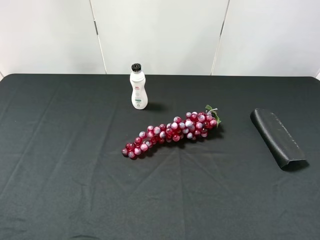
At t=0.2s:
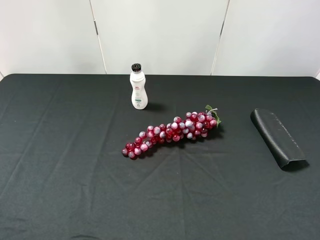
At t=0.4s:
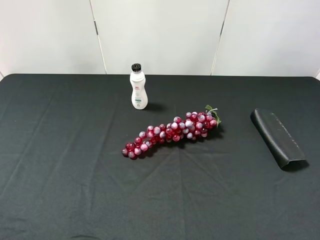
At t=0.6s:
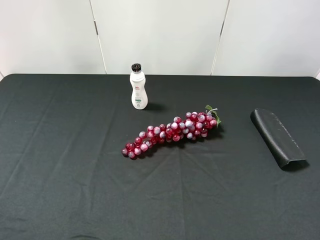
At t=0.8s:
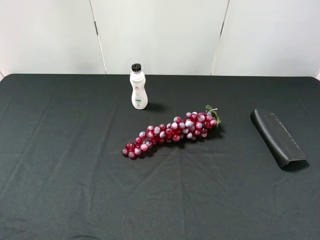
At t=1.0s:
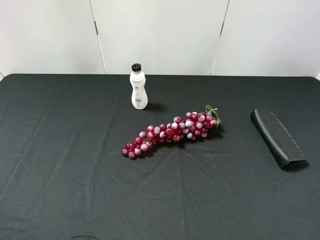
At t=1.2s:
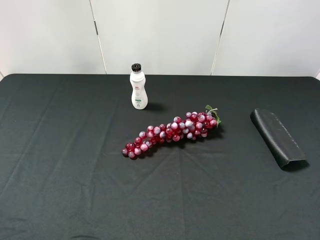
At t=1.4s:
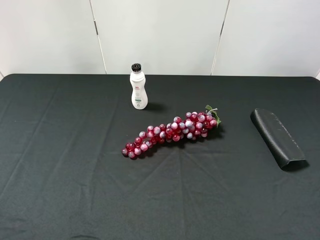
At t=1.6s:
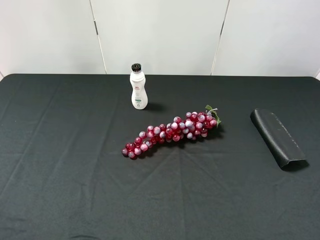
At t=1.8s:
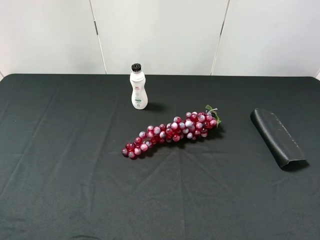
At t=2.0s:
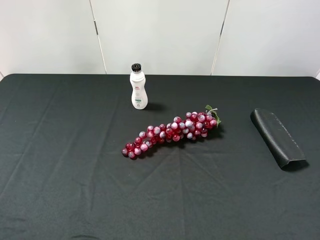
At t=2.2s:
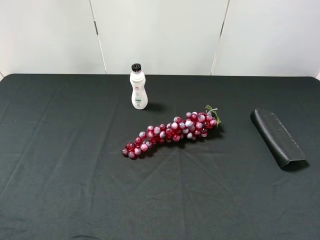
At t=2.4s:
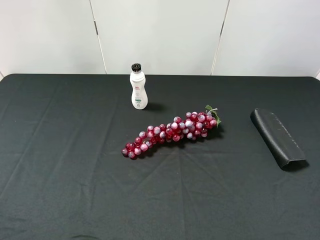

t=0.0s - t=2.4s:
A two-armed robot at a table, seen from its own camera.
Task of the whole recording: use the left gripper to pick up the item and transfer it from the left gripper to the right gripper.
t=1.2s - t=2.4s: The two grippers keep their place.
